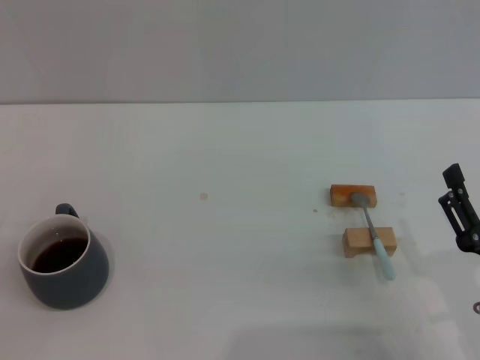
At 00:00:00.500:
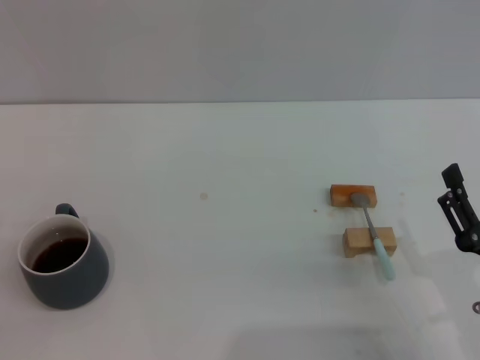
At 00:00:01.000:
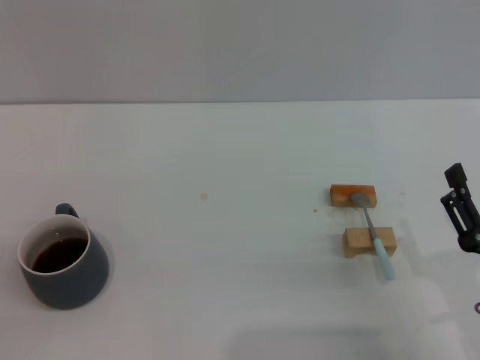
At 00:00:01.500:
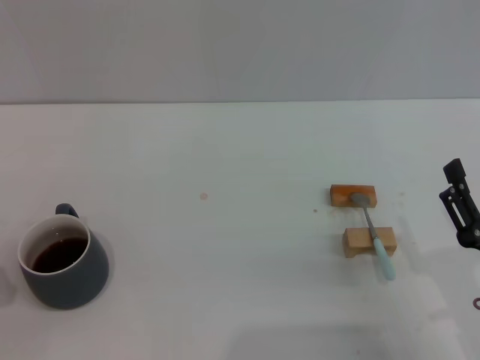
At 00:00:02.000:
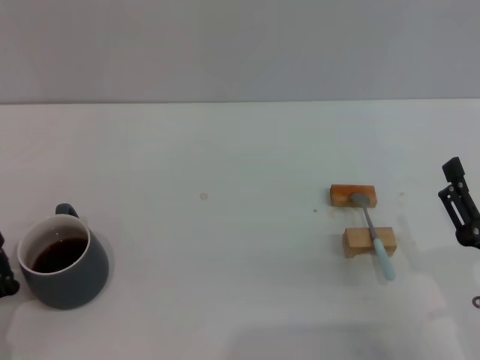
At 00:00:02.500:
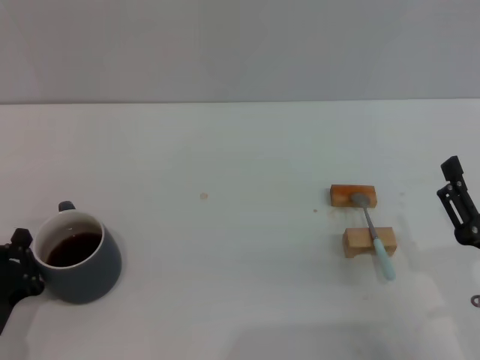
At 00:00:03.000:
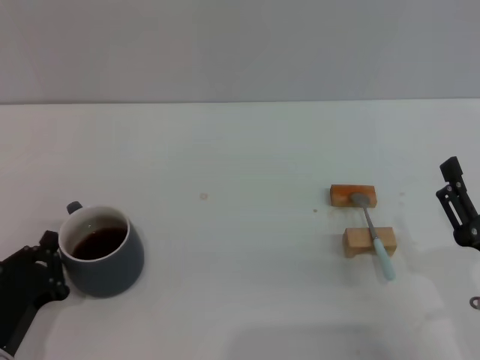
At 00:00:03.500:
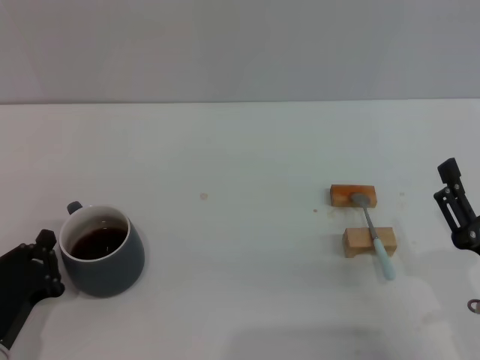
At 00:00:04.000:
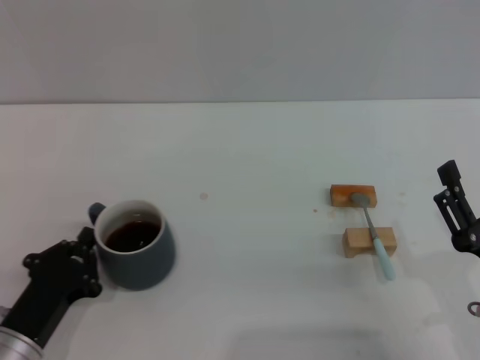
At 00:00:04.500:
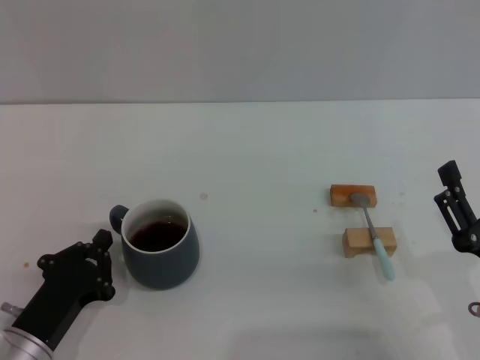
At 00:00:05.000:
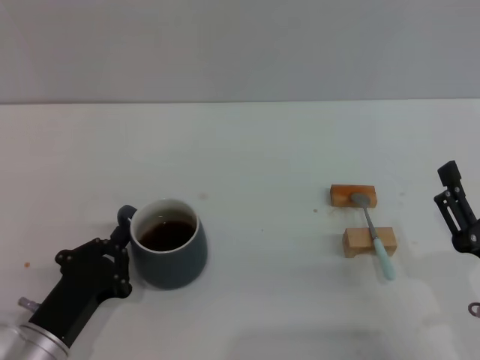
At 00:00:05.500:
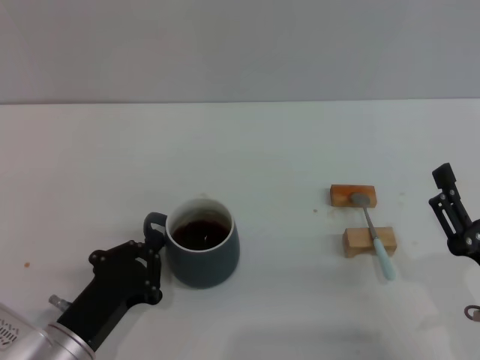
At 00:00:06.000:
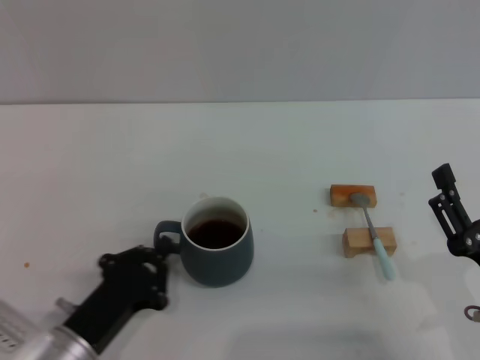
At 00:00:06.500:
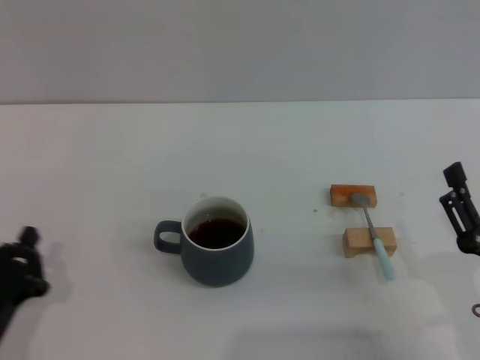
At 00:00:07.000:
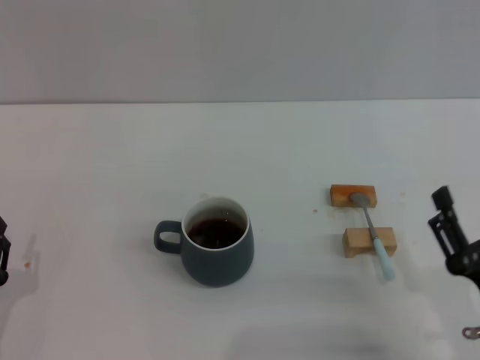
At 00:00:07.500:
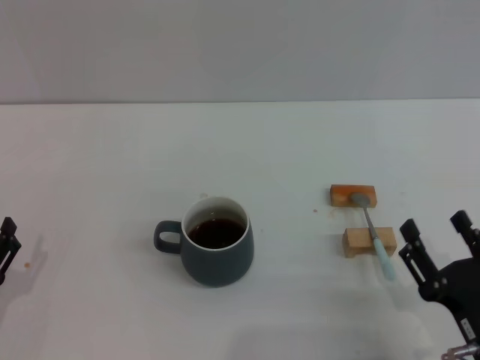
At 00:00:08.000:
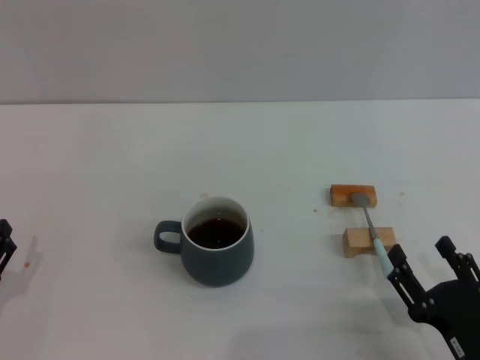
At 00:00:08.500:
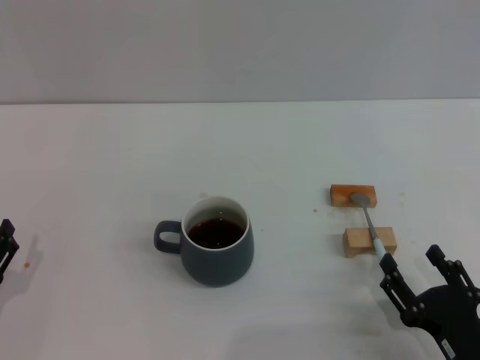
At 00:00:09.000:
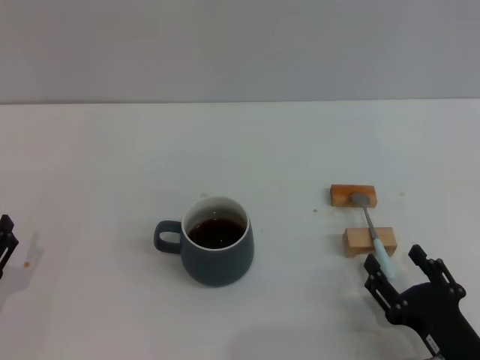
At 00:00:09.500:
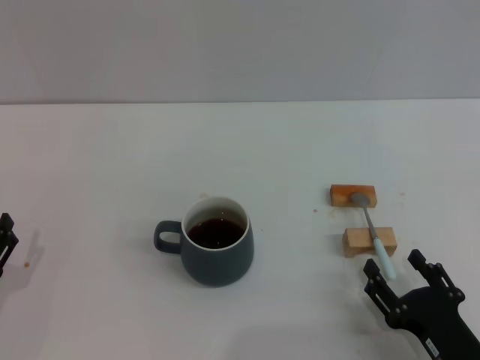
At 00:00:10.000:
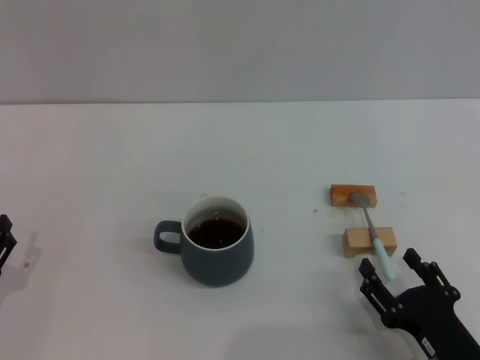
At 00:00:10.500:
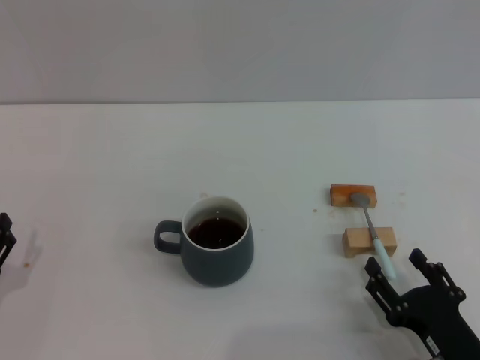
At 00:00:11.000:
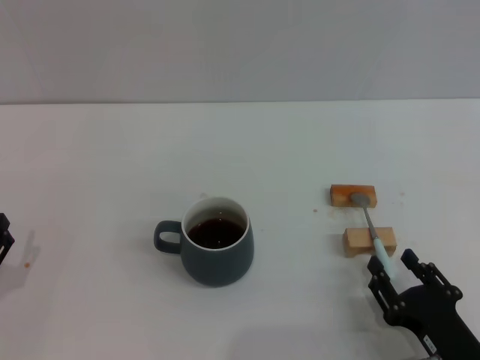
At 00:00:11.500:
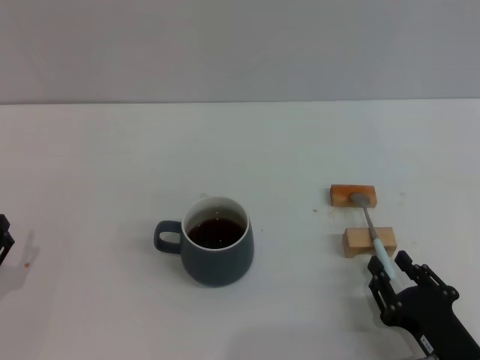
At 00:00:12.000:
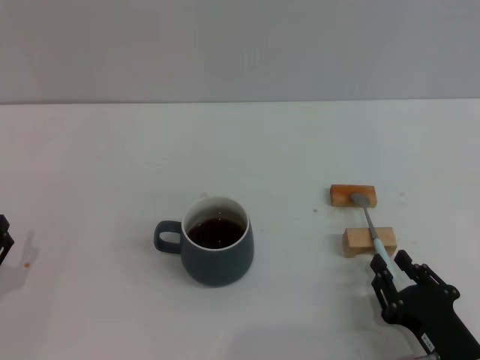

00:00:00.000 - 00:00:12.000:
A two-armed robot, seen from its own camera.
Task of the whole recording: Move the grey cup to the center, lift the blue spoon, stir it three times in the cup, and put the spoon into the cup.
Step, 00:00:00.000 - 00:00:06.000: Move the cup with coffee to the center of view with the left gripper.
00:00:00.000 - 00:00:02.000: The left gripper closes up.
00:00:02.000 - 00:00:04.000: The left gripper goes roughly 5 cm to the right.
00:00:04.000 - 00:00:06.000: The grippers move only a little.
00:00:06.000 - 00:00:08.000: The right gripper changes place by some 5 cm; the left gripper shifts roughly 10 cm to the left, and opens up.
00:00:08.000 - 00:00:10.000: The grippers stay close to where they were, moving slightly.
00:00:10.000 - 00:00:12.000: The right gripper closes its fingers.

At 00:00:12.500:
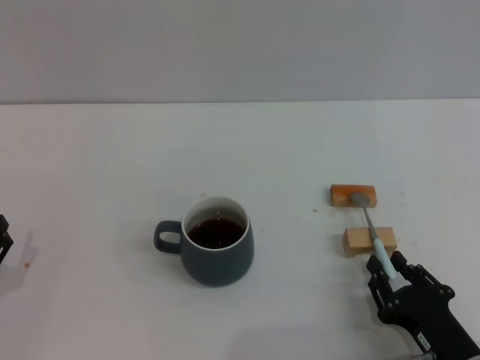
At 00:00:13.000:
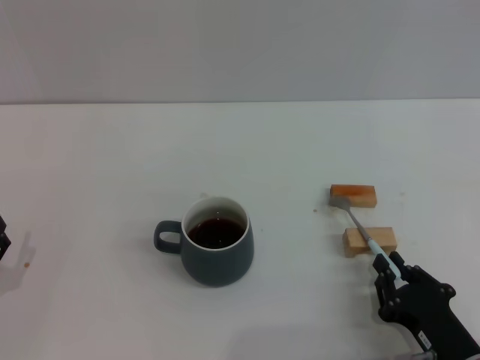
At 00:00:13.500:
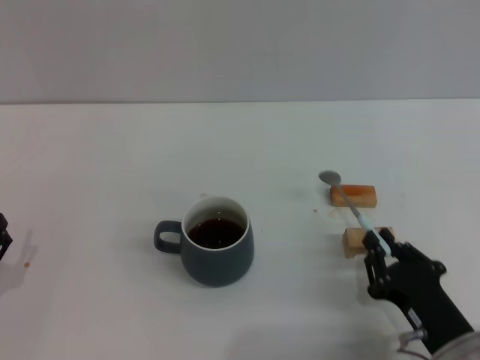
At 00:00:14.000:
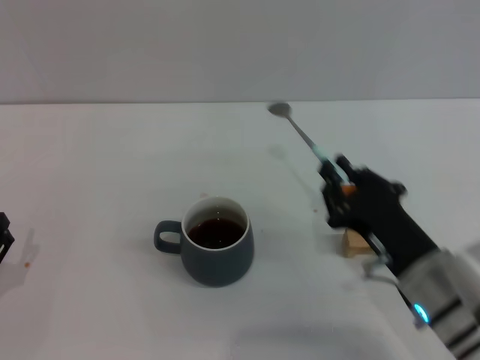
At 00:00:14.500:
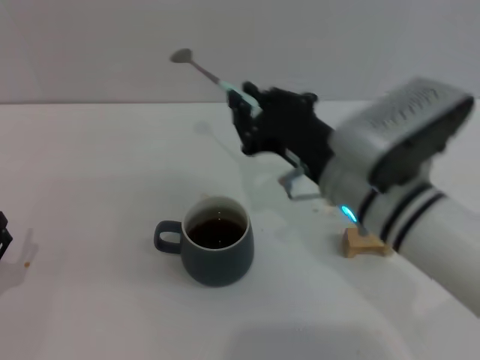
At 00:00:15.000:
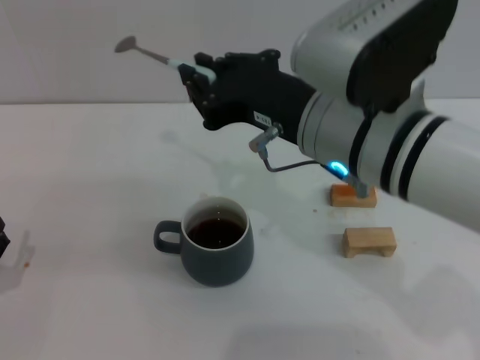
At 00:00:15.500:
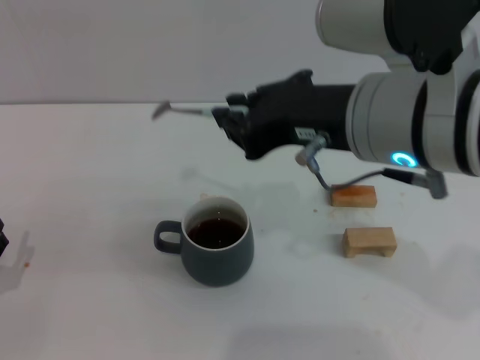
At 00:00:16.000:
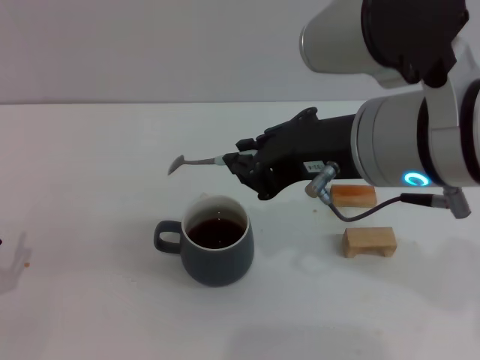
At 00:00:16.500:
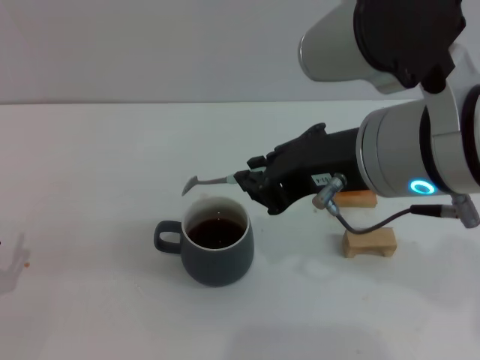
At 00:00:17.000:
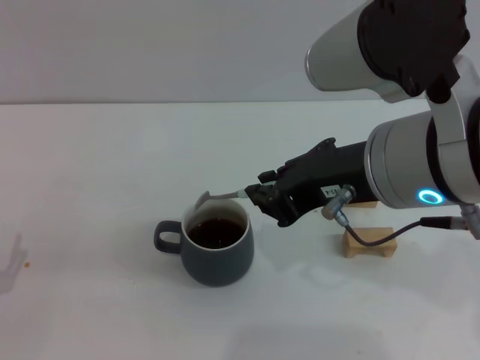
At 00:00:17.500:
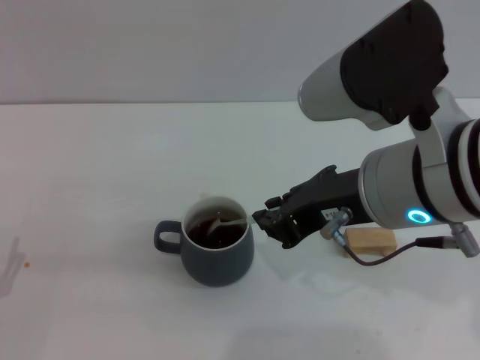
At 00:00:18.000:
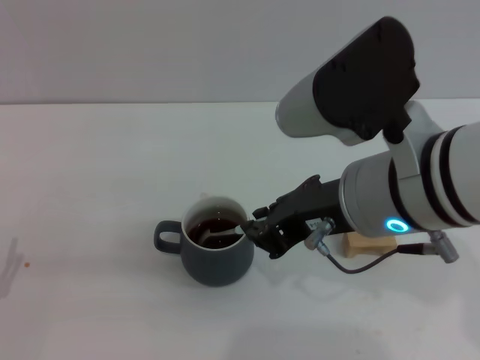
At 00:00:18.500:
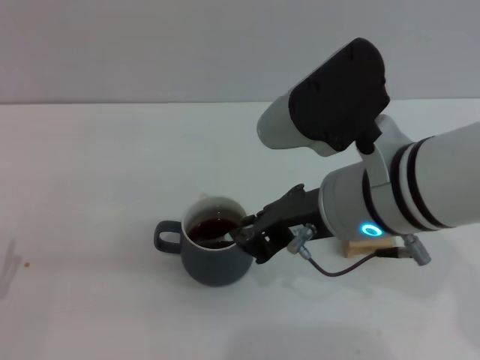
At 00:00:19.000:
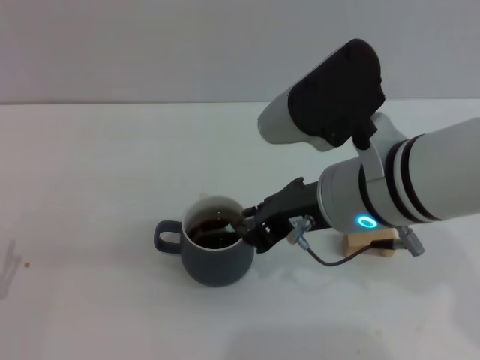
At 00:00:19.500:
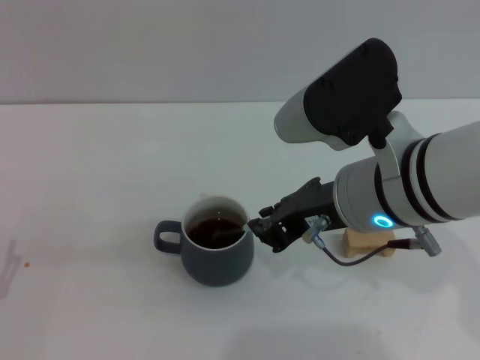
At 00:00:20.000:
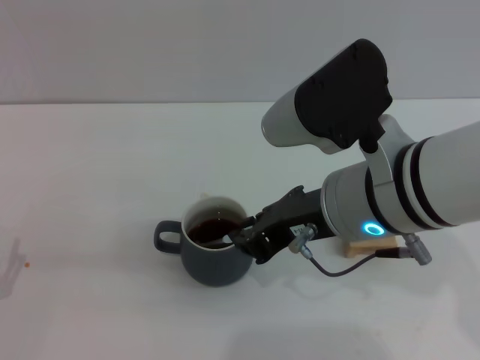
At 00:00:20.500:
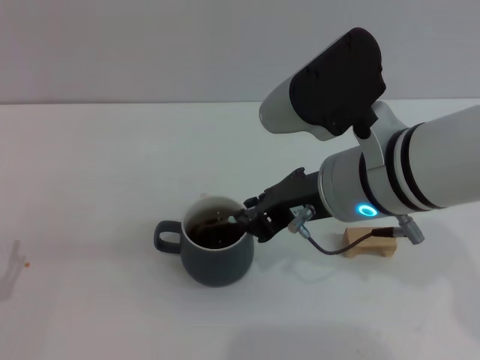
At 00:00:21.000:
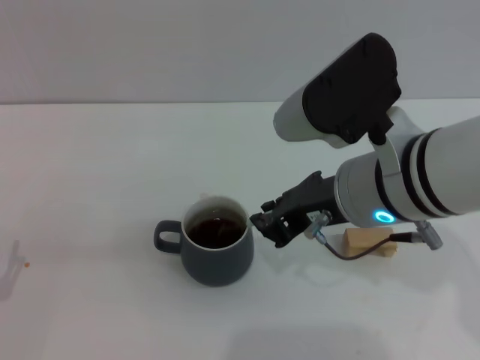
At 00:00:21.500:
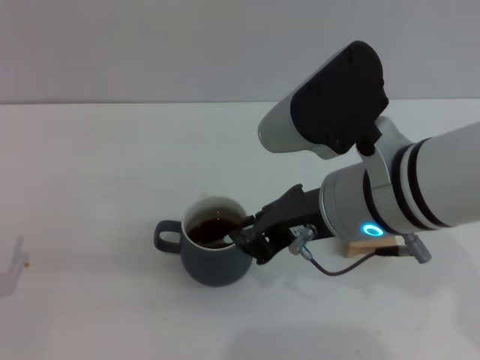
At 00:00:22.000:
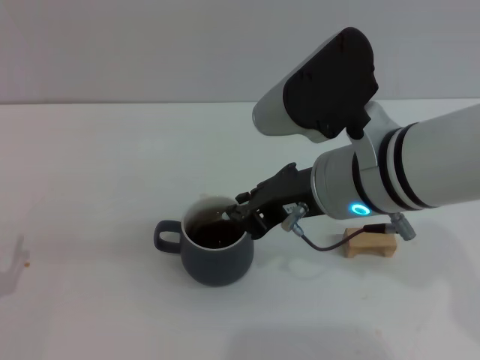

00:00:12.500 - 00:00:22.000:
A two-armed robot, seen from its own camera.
Task of the whole recording: Move the grey cup to the center, lift the blue spoon, stir it three times in the cup, and put the spoon into the cup.
00:00:12.500 - 00:00:14.500: The right gripper is displaced upward, forward and to the left by some 25 cm.
00:00:14.500 - 00:00:16.500: The right gripper travels upward by roughly 10 cm.
00:00:18.000 - 00:00:22.000: There are only small adjustments of the grippers.

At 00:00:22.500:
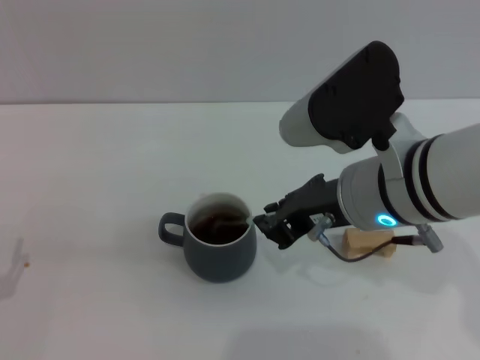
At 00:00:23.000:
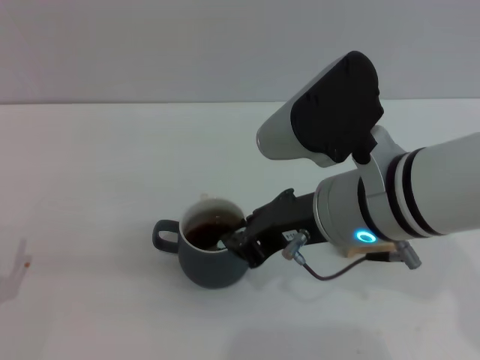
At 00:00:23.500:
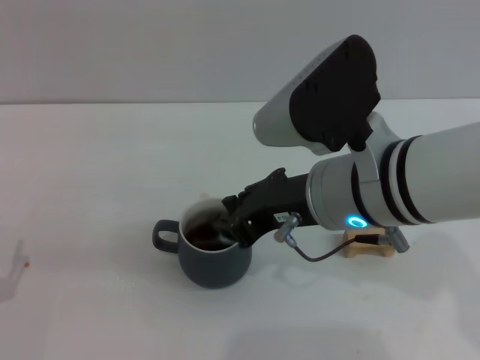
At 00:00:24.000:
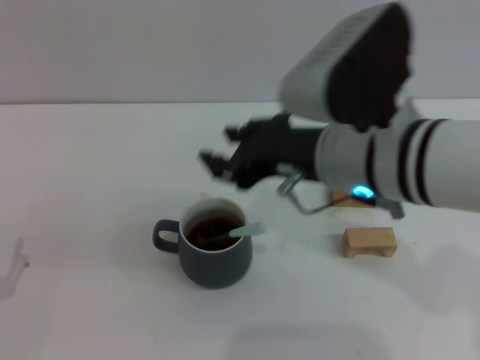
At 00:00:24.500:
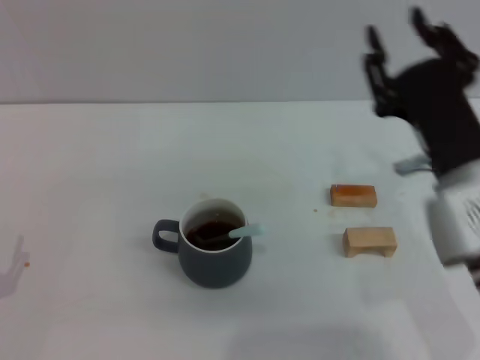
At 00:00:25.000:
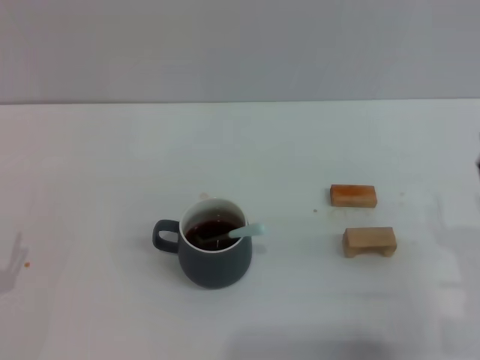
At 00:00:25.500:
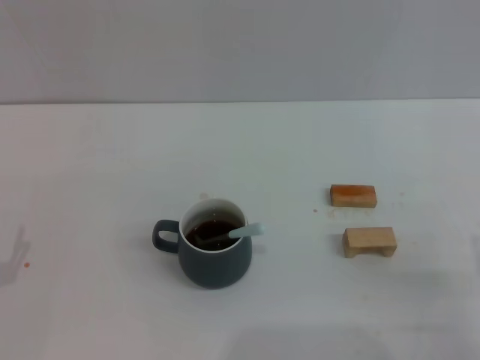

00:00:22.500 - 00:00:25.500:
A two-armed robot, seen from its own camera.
Task of the whole recording: Move the grey cup to the center, lift the blue spoon, stir it three times in the cup, and put the spoon into the cup.
00:00:22.500 - 00:00:24.000: The right gripper opens its fingers.
00:00:24.000 - 00:00:25.500: The right gripper travels to the right, downward and backward by about 30 cm.
